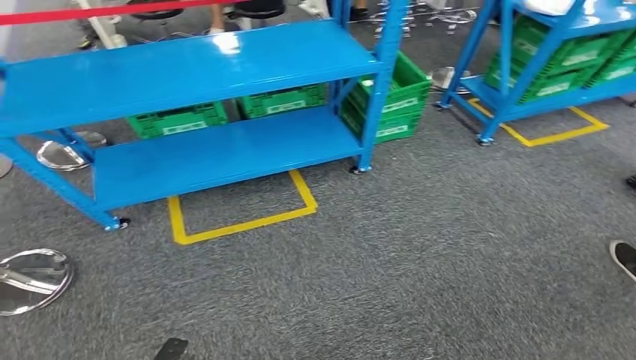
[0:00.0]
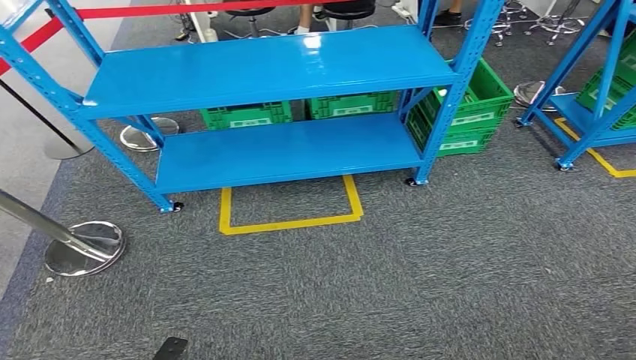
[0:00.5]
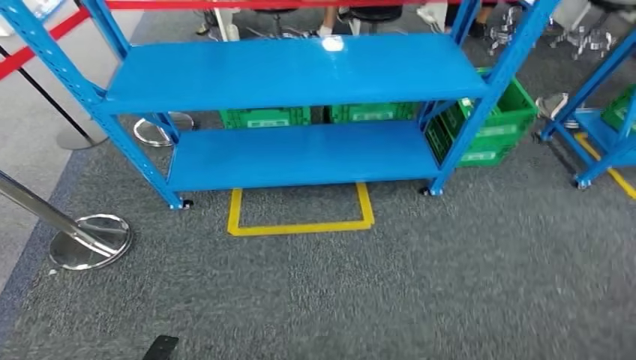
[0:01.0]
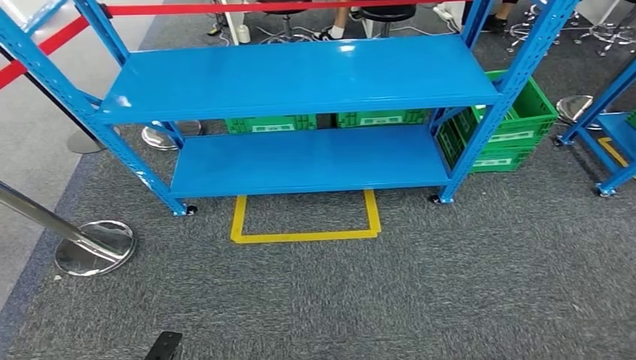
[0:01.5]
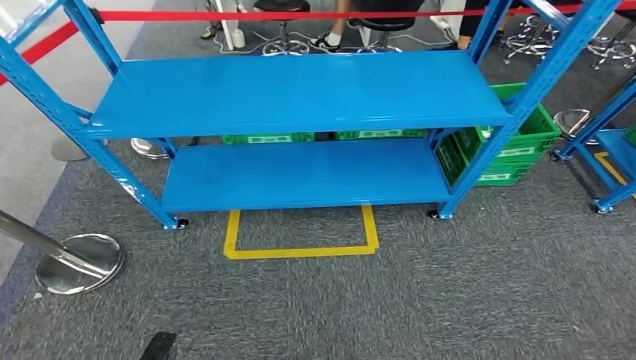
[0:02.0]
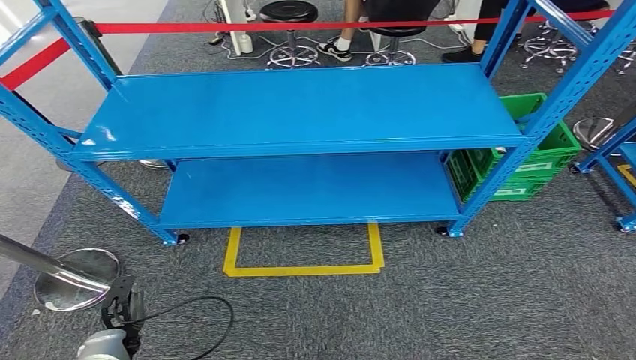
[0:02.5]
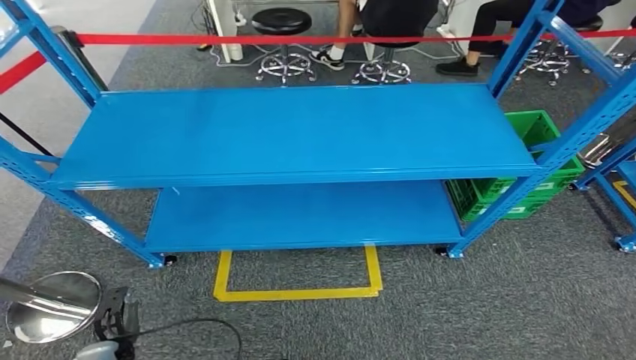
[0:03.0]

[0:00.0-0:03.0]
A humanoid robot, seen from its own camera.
Step, 0:00.0 to 0:03.0: Move to the initial position at the workbench.
